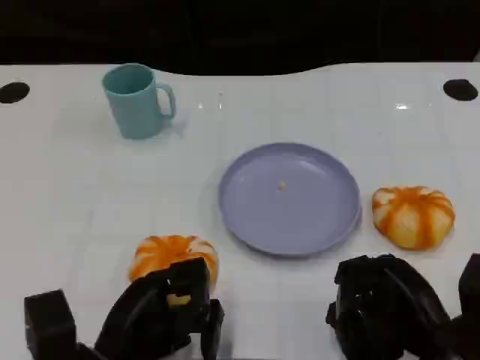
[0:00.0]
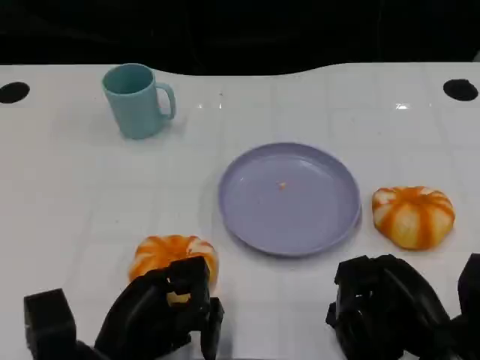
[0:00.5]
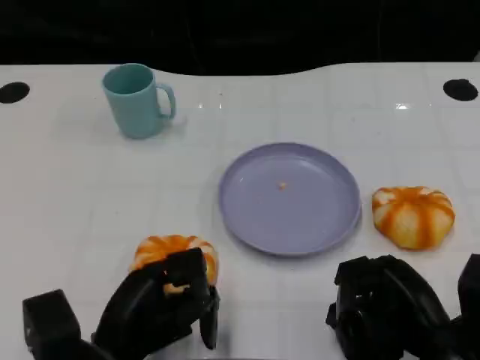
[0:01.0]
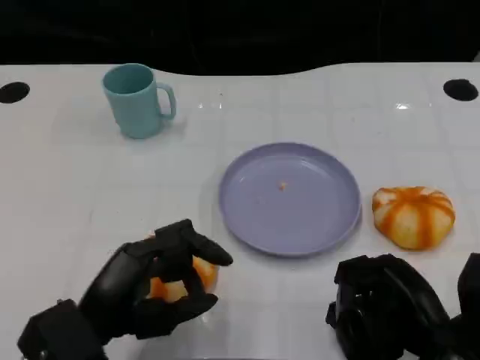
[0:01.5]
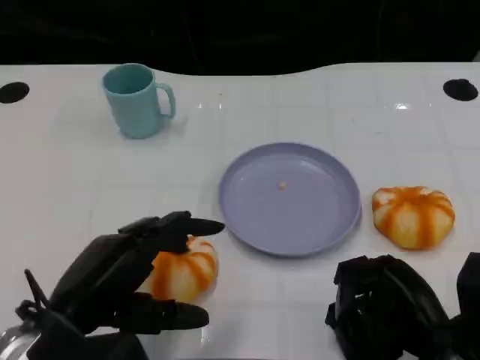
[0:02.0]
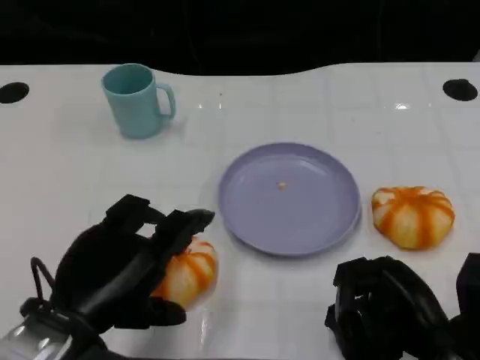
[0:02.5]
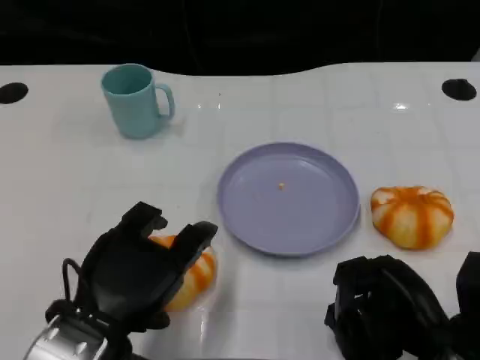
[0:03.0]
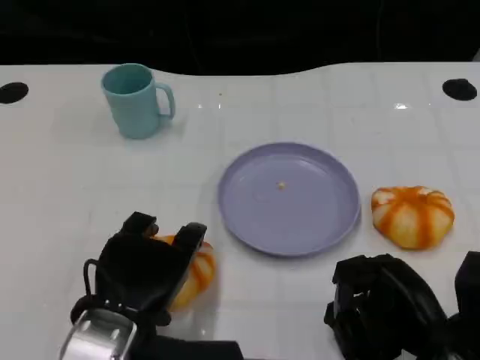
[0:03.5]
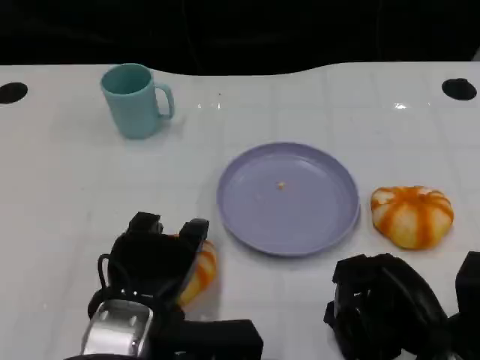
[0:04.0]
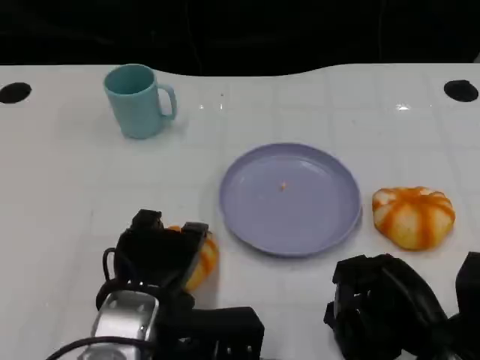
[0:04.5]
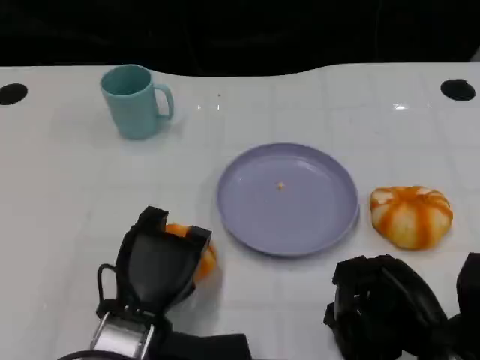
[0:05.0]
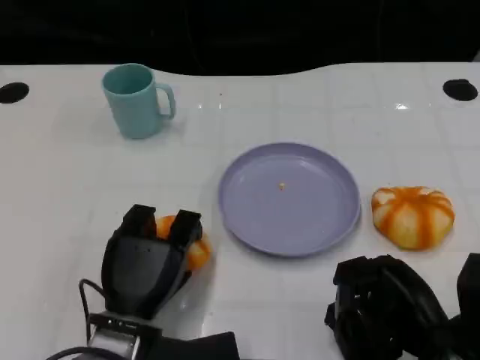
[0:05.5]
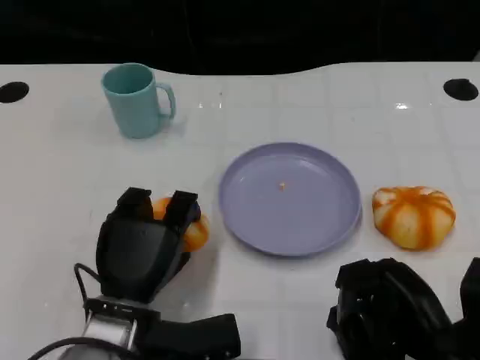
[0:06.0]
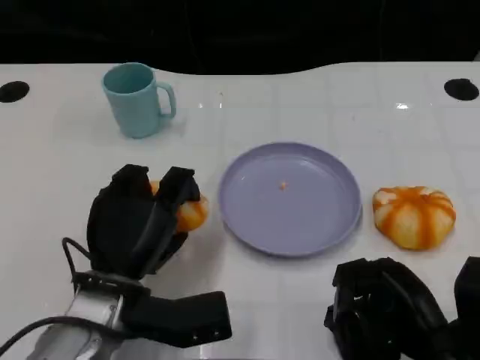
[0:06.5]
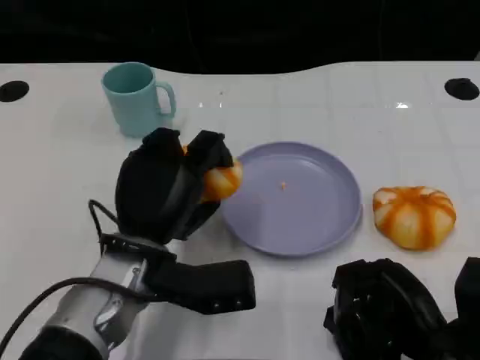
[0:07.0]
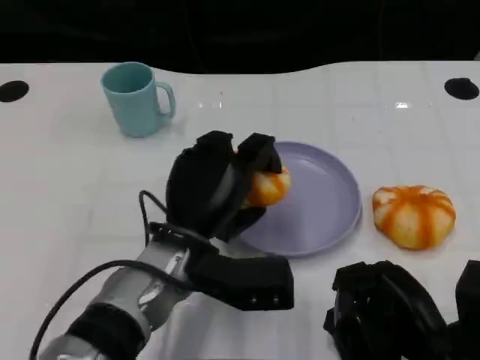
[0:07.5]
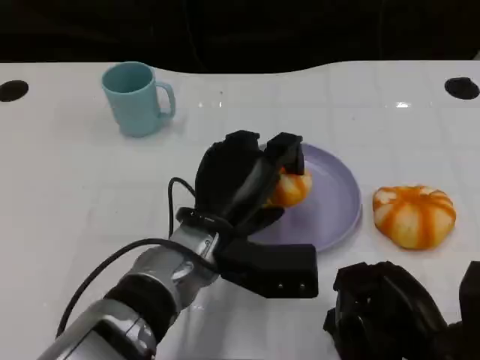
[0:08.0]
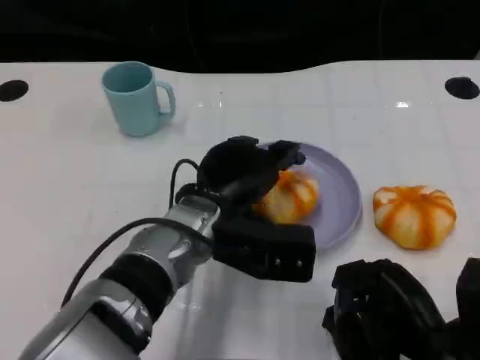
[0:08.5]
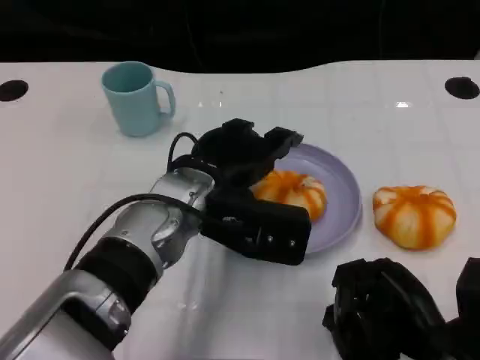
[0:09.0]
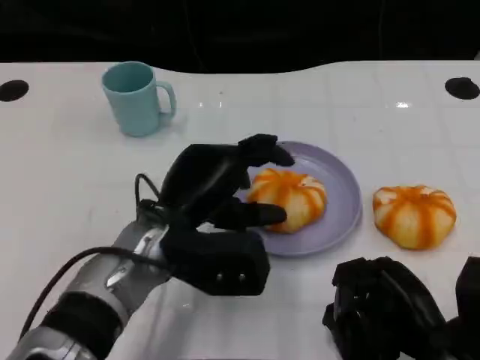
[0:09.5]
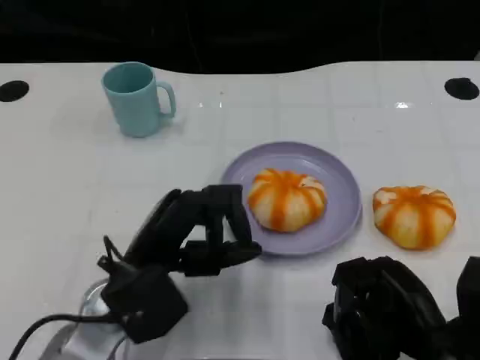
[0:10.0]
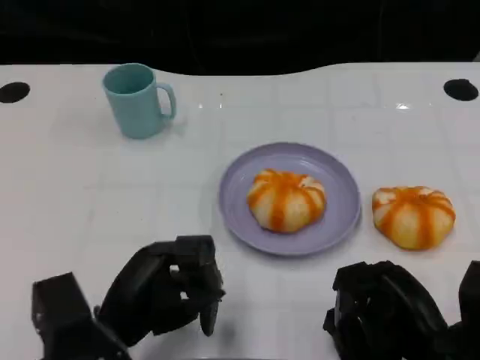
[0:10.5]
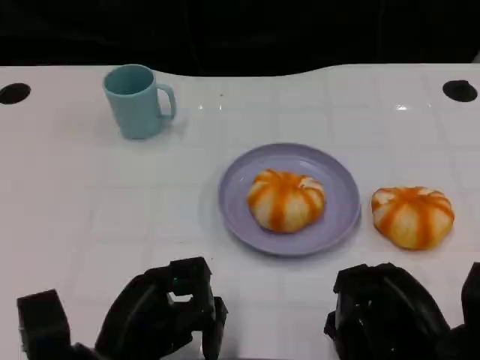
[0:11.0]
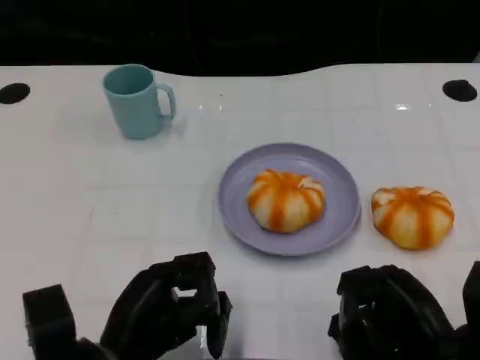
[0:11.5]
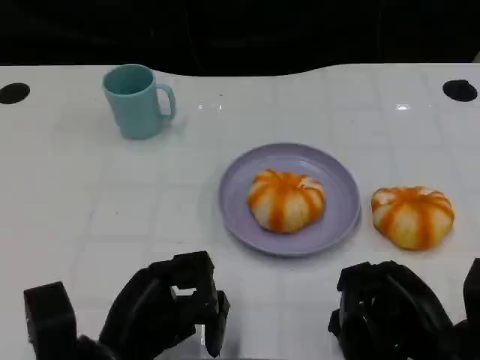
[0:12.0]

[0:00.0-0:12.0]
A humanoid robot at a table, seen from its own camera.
Task of the whole recording: Grasp the bread from the table and place it into the plate.
0:00.0 to 0:02.0: The left hand is displaced upward by approximately 10 cm.
0:02.0 to 0:04.0: The left hand heads to the right, covering approximately 5 cm.
0:04.0 to 0:06.0: The left hand moves downward, approximately 5 cm.
0:06.0 to 0:08.0: The left hand is displaced to the right and forward by some 10 cm.
0:08.0 to 0:10.0: The left hand shifts some 10 cm to the left.
0:10.0 to 0:12.0: The left hand travels backward by about 5 cm.
